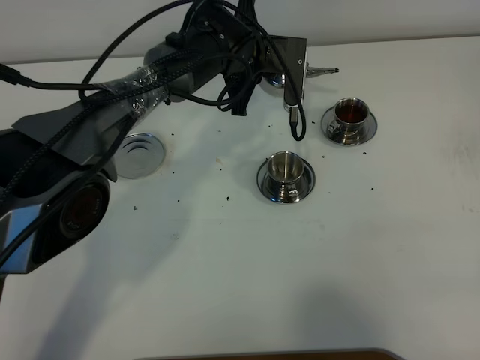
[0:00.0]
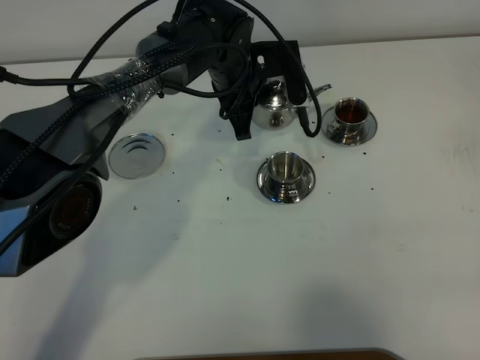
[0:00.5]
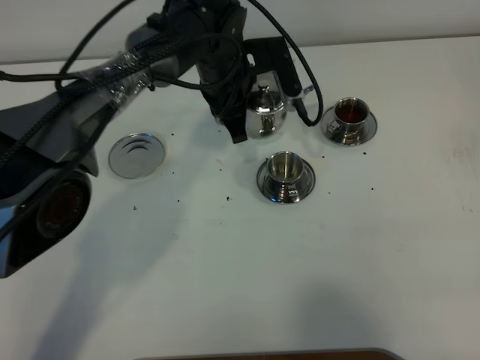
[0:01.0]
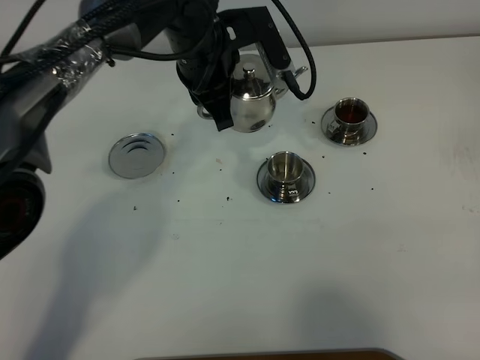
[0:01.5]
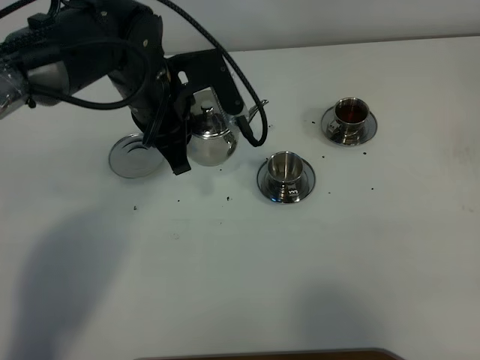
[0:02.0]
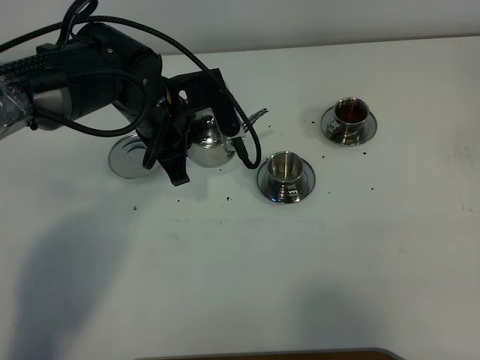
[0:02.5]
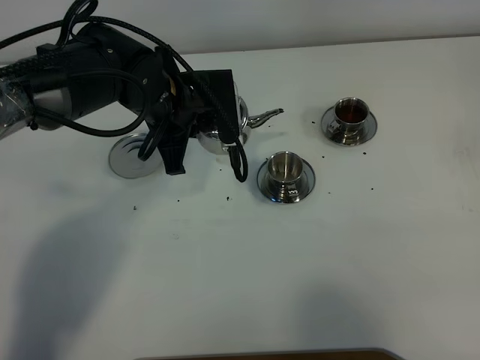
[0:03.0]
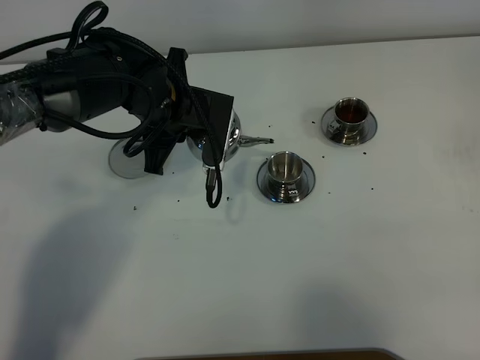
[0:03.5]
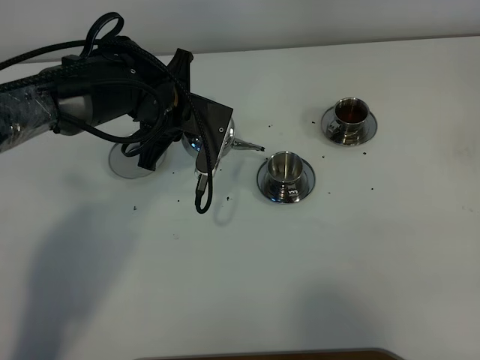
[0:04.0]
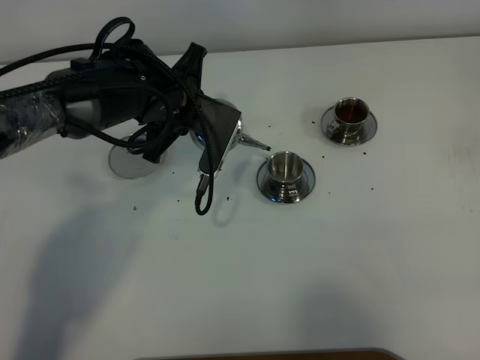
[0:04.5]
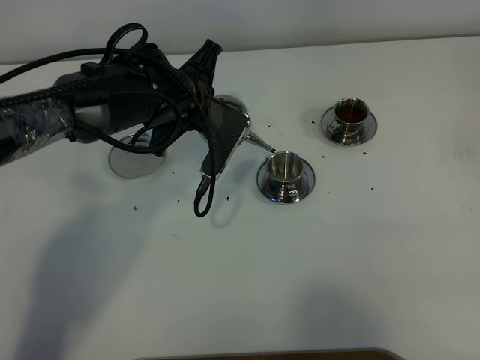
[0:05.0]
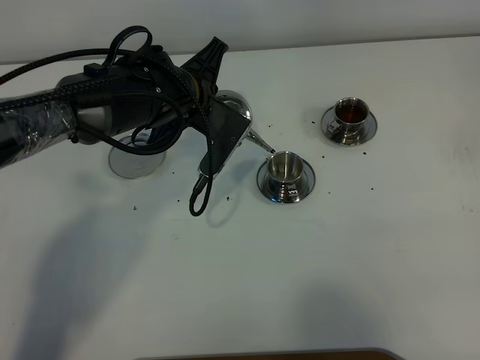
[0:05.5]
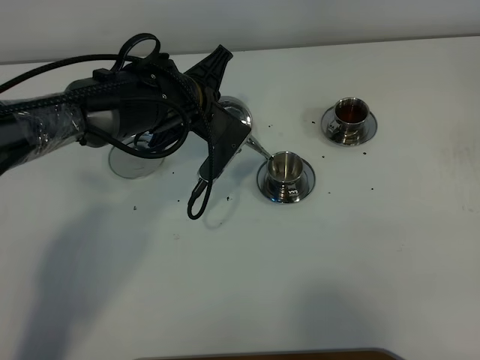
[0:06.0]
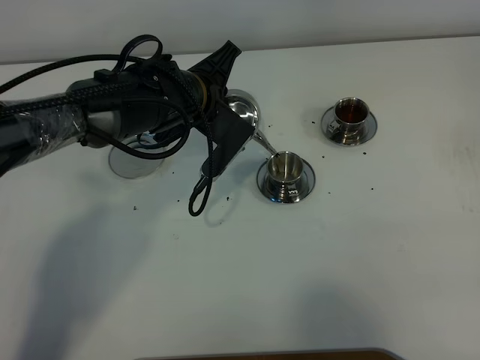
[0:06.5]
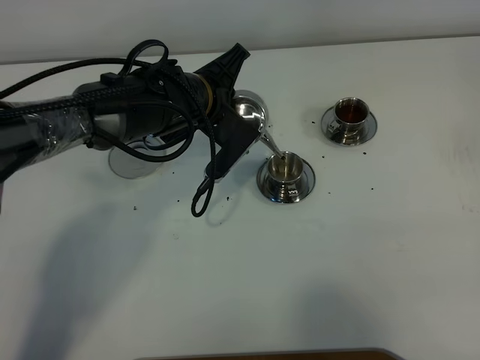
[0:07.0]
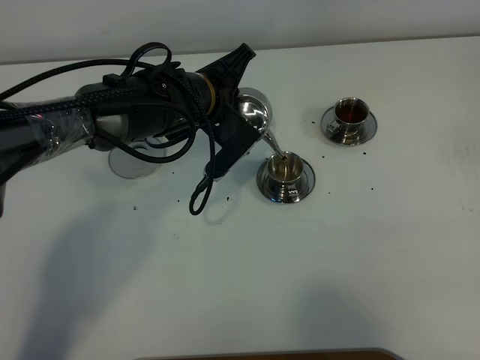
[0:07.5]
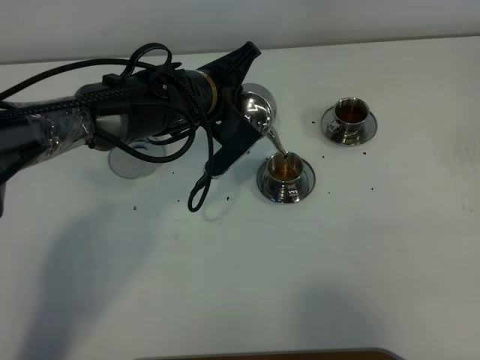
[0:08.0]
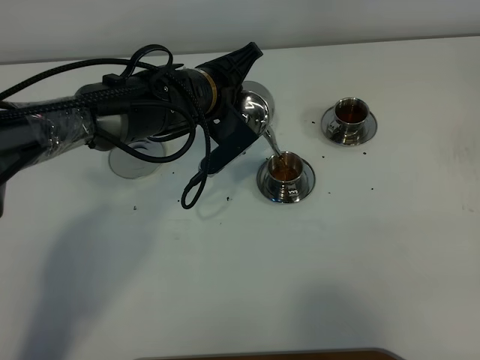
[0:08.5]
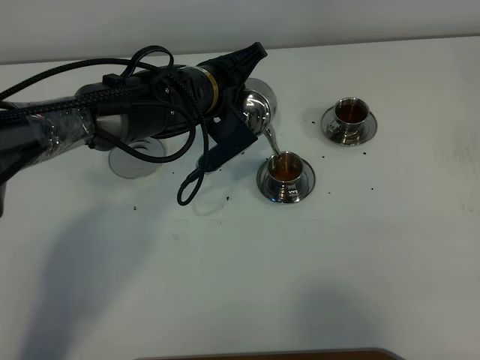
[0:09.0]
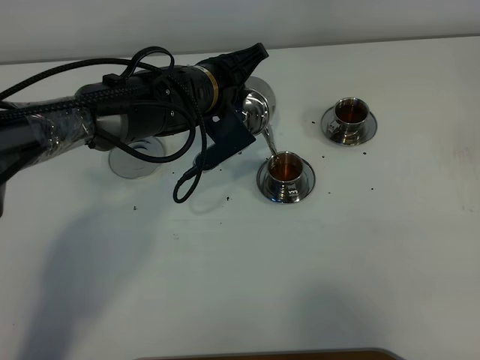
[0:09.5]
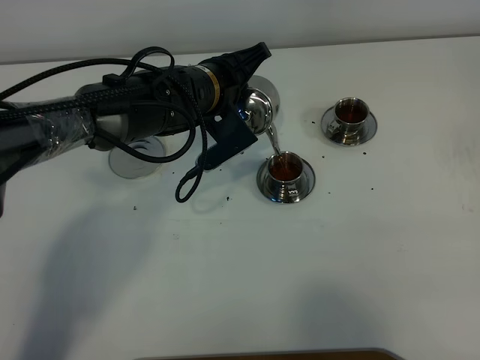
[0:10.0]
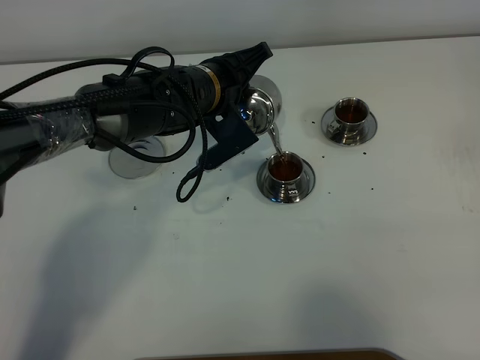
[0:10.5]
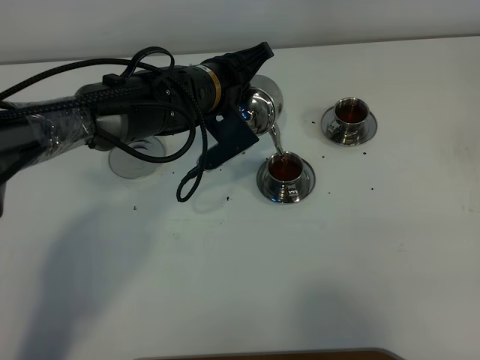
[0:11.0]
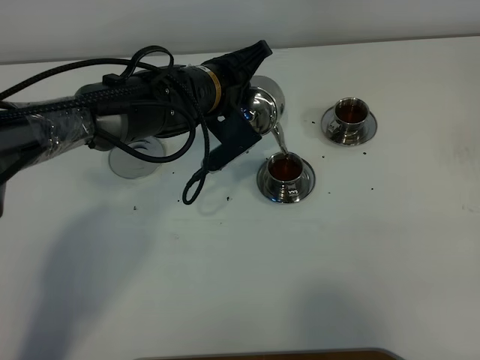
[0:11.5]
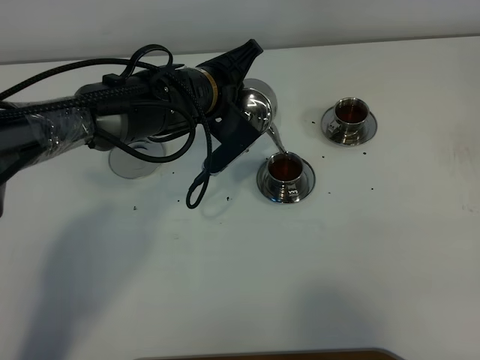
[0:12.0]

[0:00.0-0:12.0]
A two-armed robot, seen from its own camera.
Task of the whole recording: grasp the stainless steel teapot and pour the tea into the two stainless steel teacups one by one, put the stainless steel teapot back in its original place.
0:00.0 to 0:02.0: The left gripper goes approximately 15 cm backward and to the left.
0:06.0 to 0:08.0: The grippers stay close to where they were, moving slightly.
0:08.0 to 0:12.0: The grippers make only small movements.

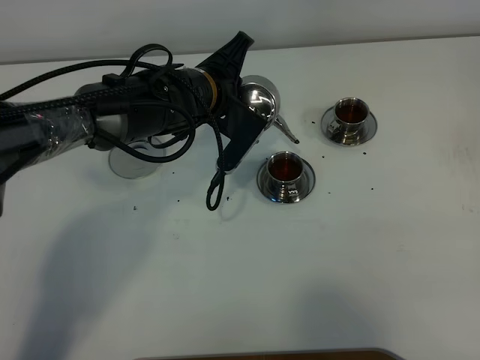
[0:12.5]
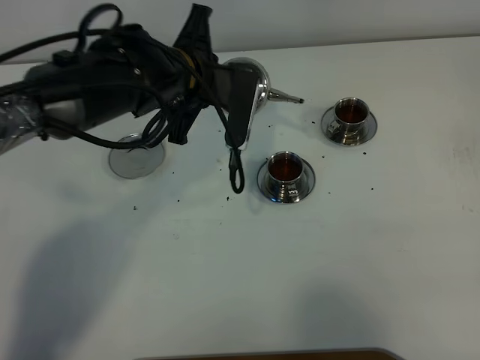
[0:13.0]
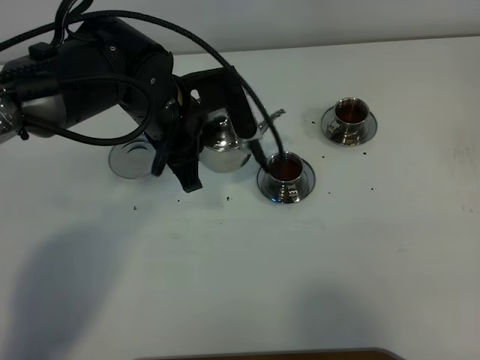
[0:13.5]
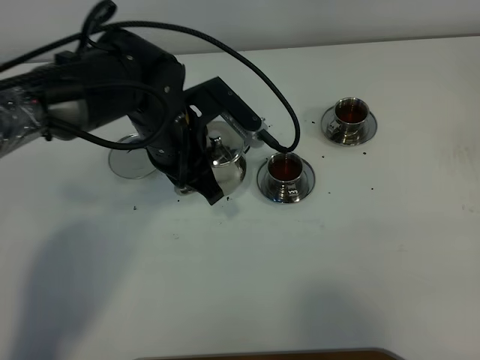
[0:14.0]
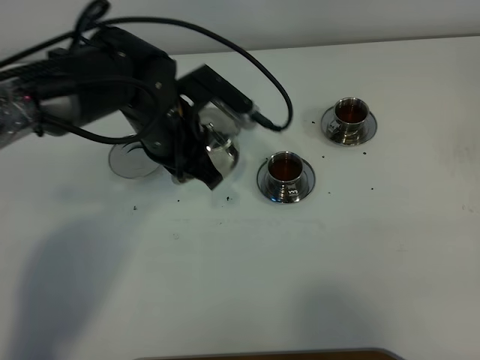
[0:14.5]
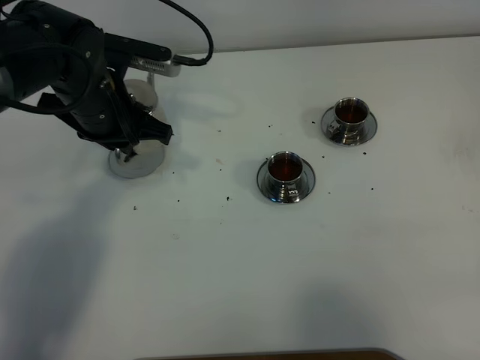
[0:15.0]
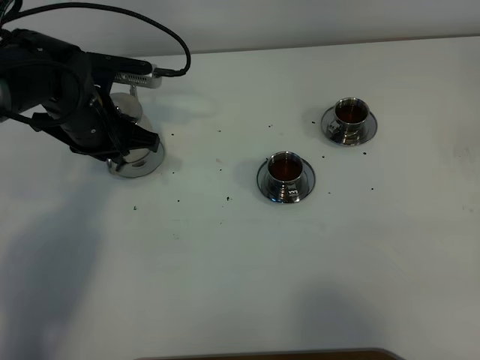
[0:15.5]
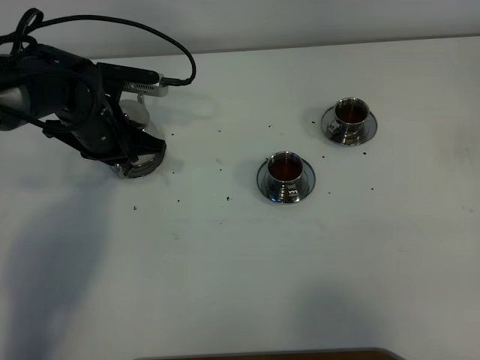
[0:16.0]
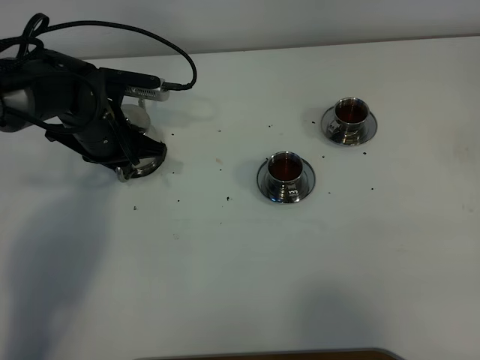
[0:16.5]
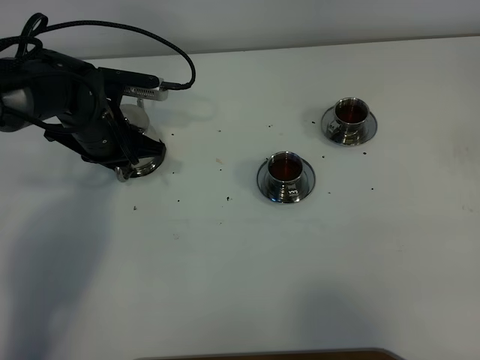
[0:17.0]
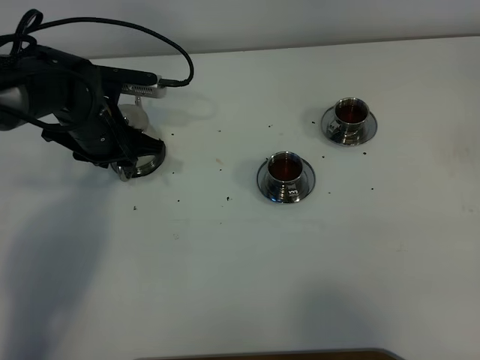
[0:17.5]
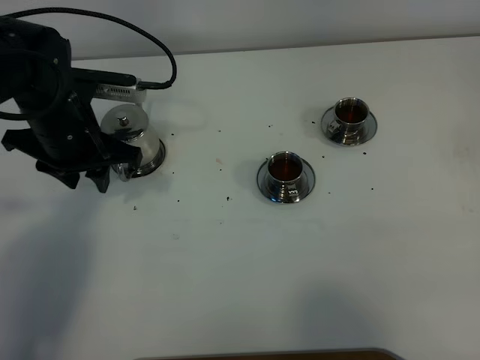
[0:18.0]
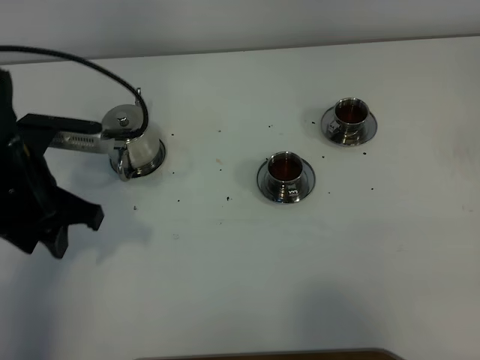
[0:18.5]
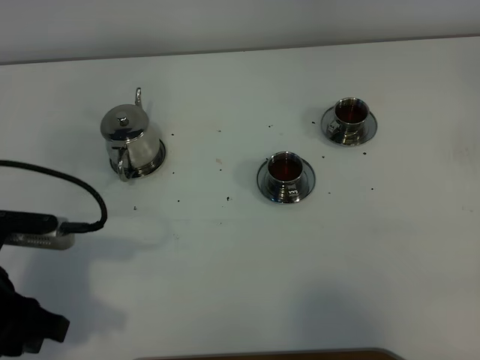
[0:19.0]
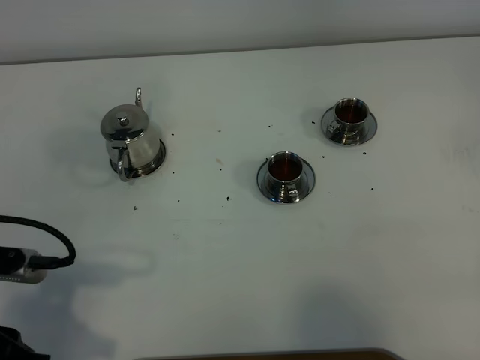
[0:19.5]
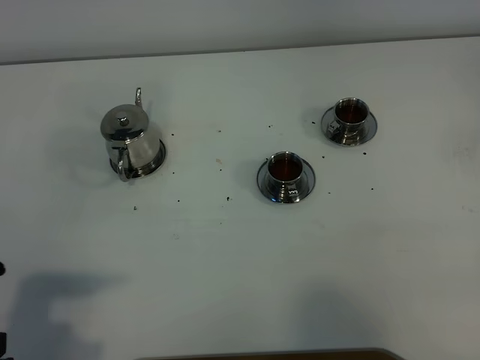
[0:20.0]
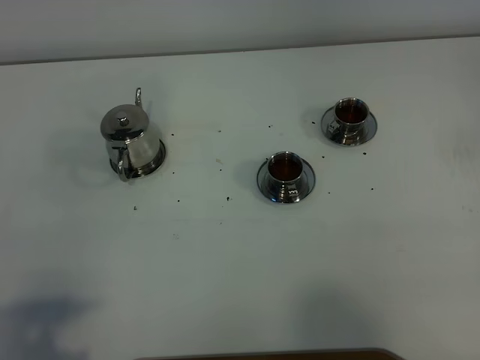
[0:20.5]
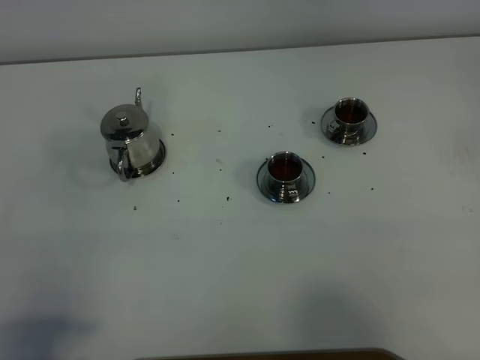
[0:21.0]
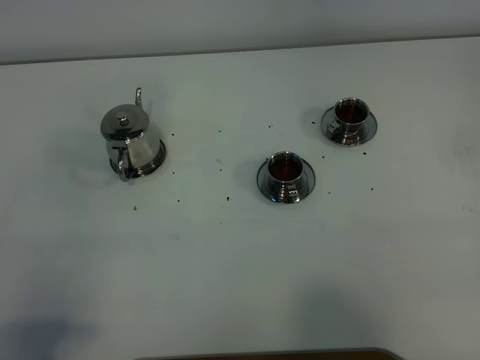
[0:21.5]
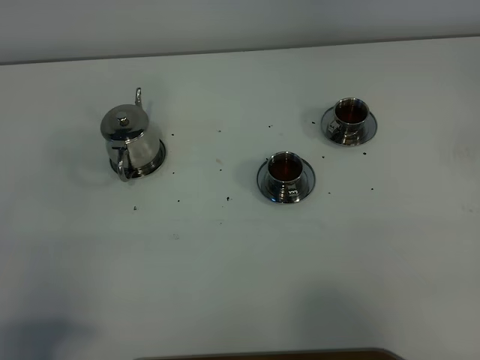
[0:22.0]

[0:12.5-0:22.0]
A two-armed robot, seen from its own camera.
Task of the whole recording: grasp the stainless steel teapot and pour the tea into the two stainless steel teacups one by one, put the stainless steel teapot back in its original place.
0:12.5 to 0:14.5: The left gripper moves some 5 cm.
0:14.5 to 0:16.5: The left gripper moves to the left and downward, approximately 10 cm.
0:16.5 to 0:18.0: The left gripper moves upward, some 5 cm, and opens up.
0:18.0 to 0:20.0: The left gripper shifts approximately 30 cm backward.

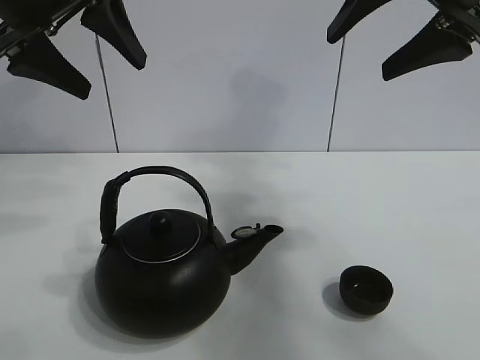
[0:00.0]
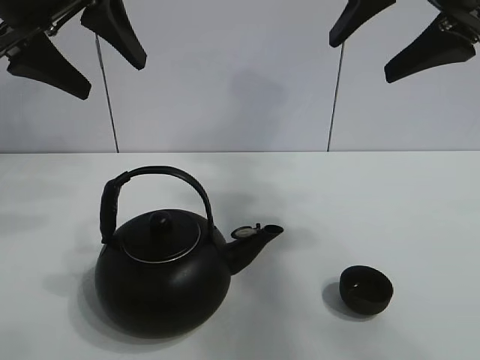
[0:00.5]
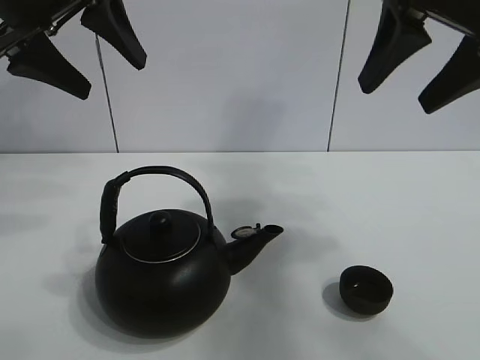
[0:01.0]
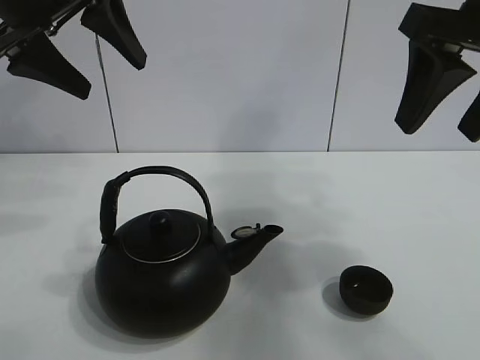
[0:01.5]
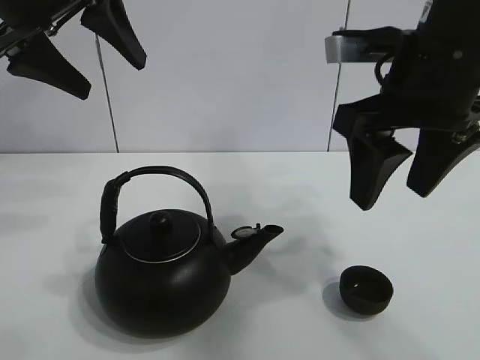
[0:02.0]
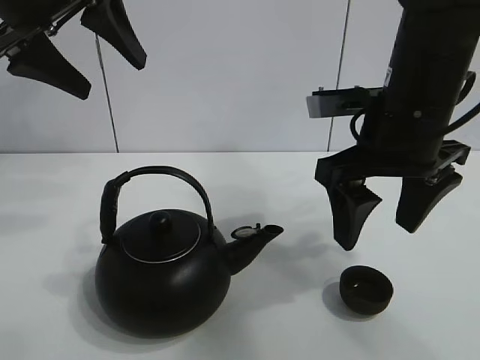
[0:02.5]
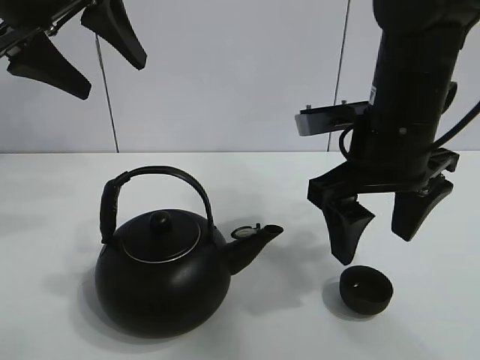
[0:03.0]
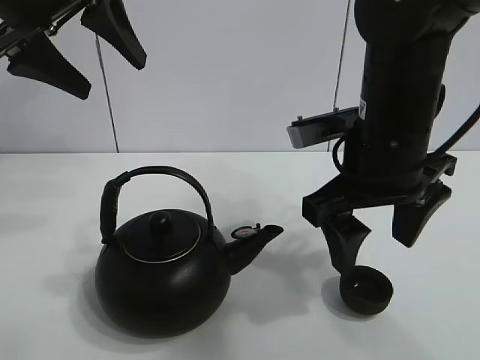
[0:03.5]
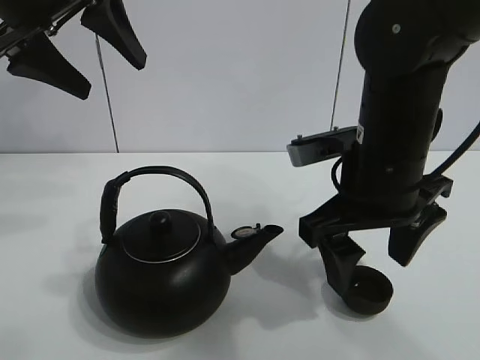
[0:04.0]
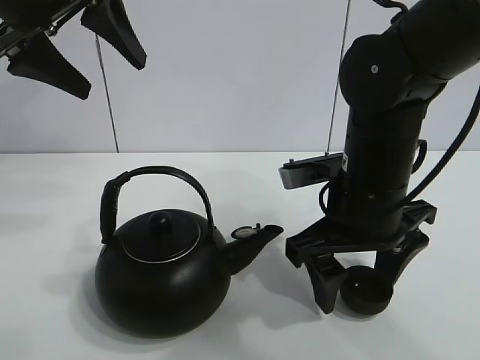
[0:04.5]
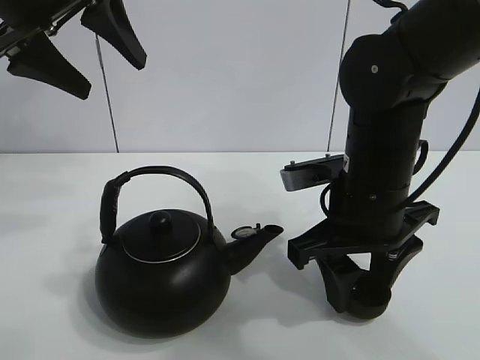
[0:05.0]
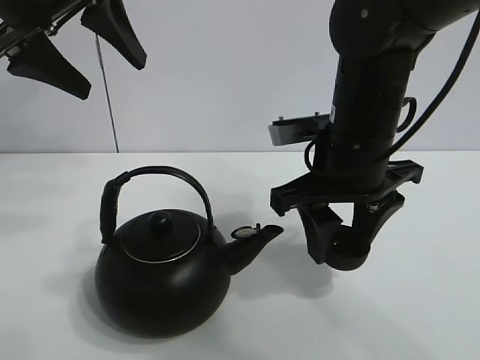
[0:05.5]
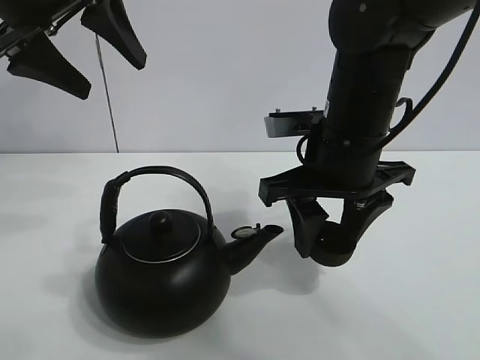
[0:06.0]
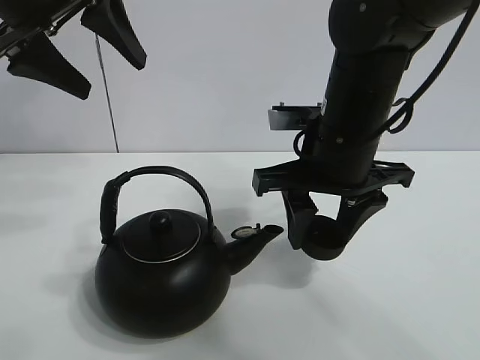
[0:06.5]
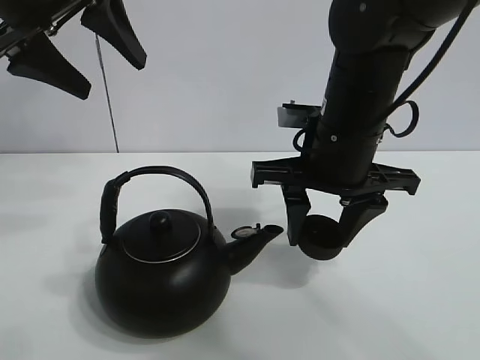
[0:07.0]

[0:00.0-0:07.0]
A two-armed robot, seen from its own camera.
Task of the whole recording: pour tea into the teacup.
Step, 0:00.0 to 0:05.0: Pick up the teacup with the right gripper.
0:02.0 to 0:03.5: The right gripper travels downward by approximately 5 cm, and opens up.
0:03.5 to 0:05.0: The right gripper closes.
0:05.0 to 0:07.0: The right gripper moves approximately 5 cm.
